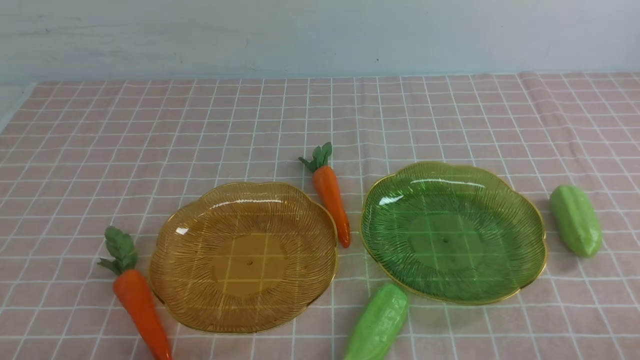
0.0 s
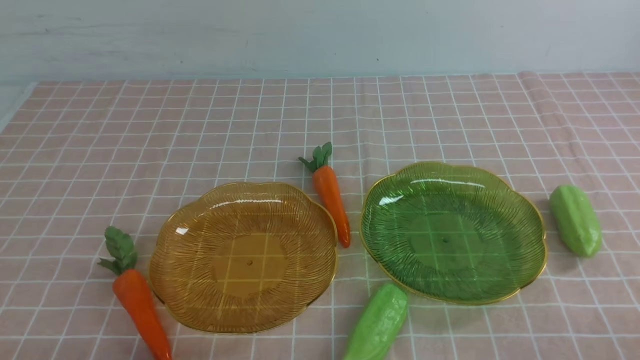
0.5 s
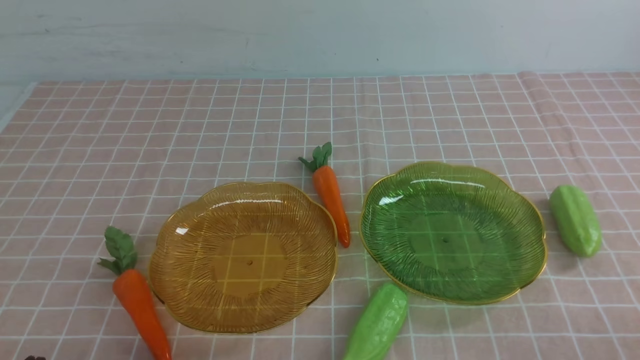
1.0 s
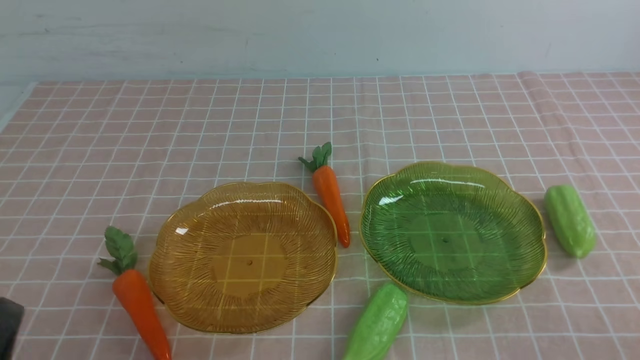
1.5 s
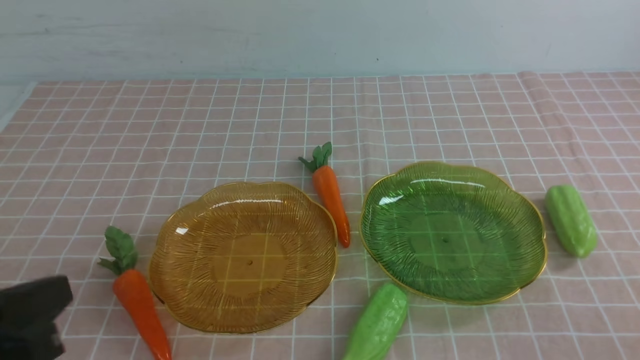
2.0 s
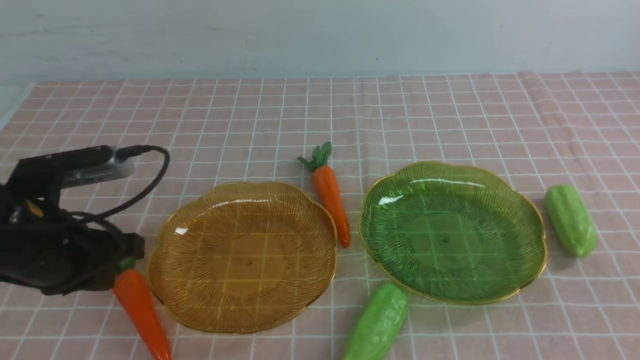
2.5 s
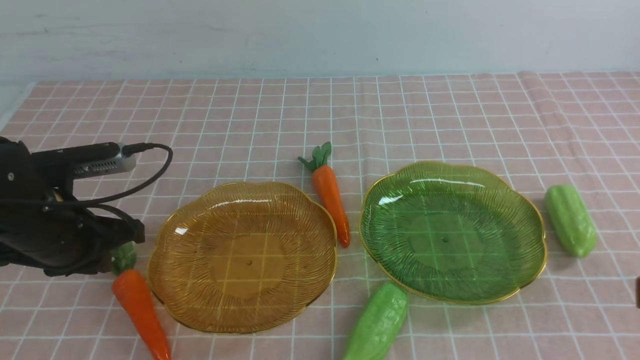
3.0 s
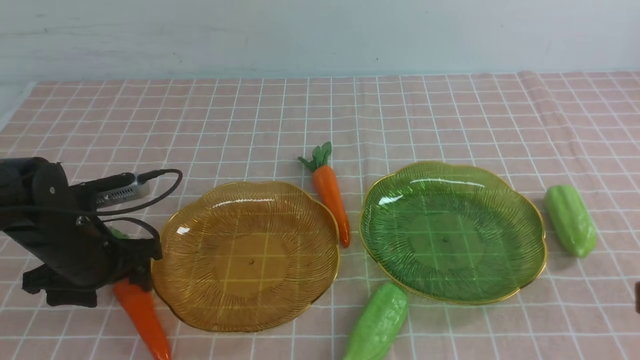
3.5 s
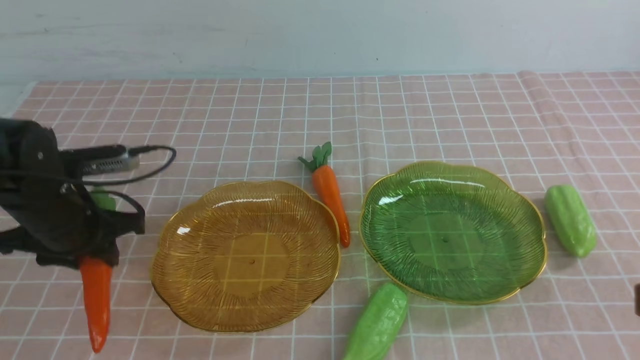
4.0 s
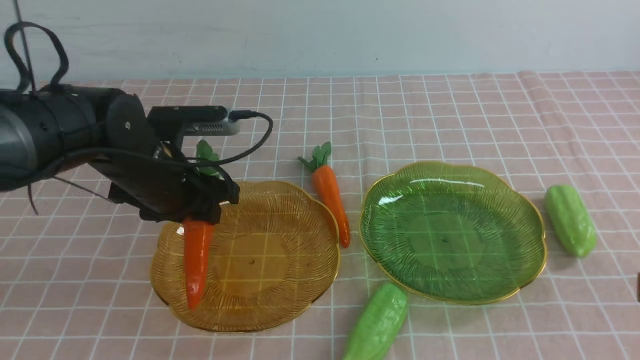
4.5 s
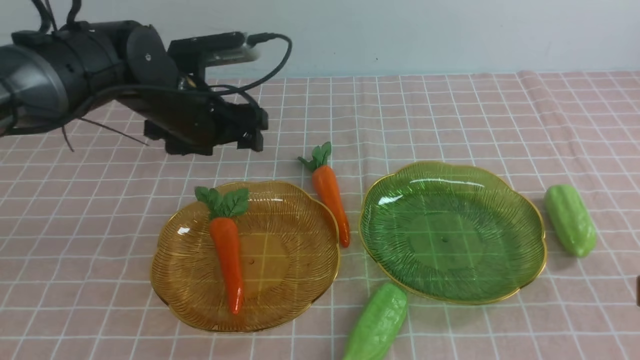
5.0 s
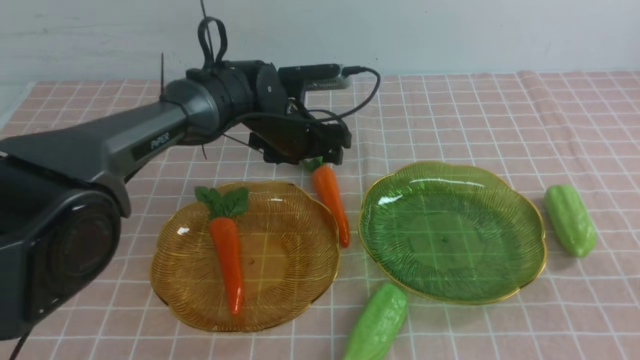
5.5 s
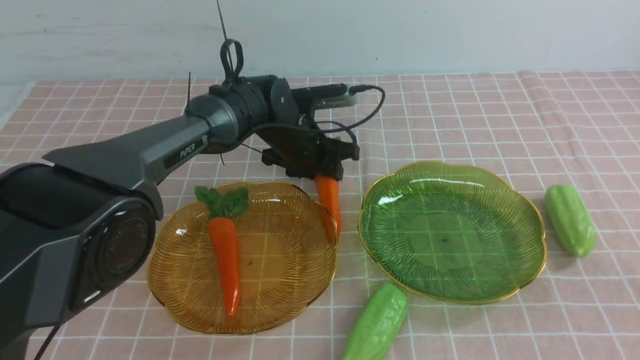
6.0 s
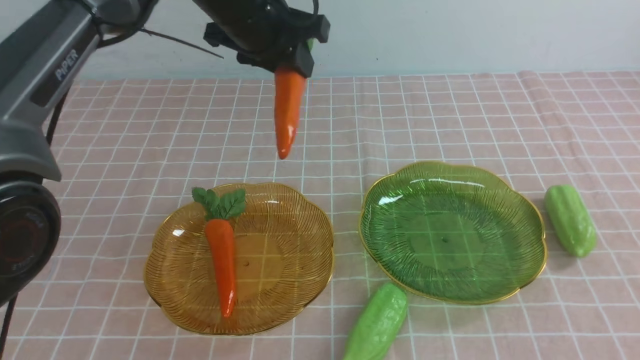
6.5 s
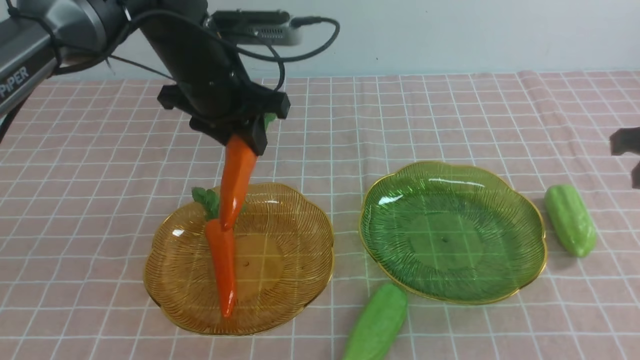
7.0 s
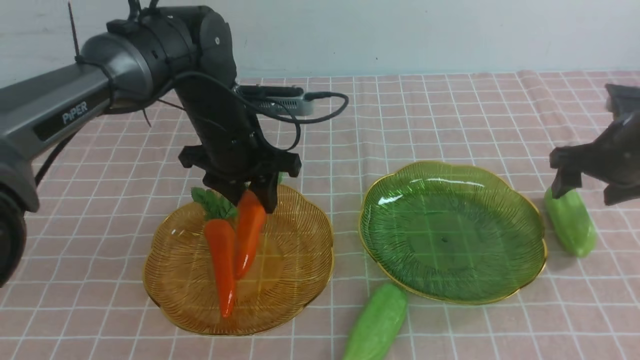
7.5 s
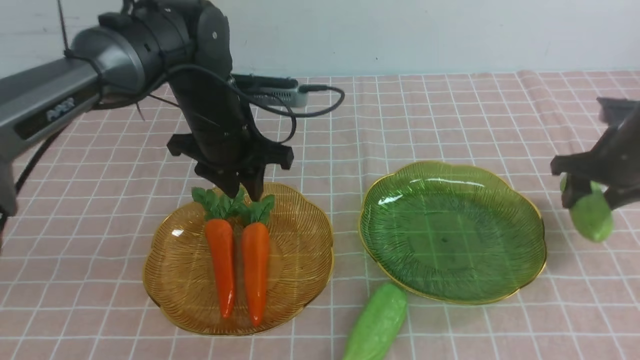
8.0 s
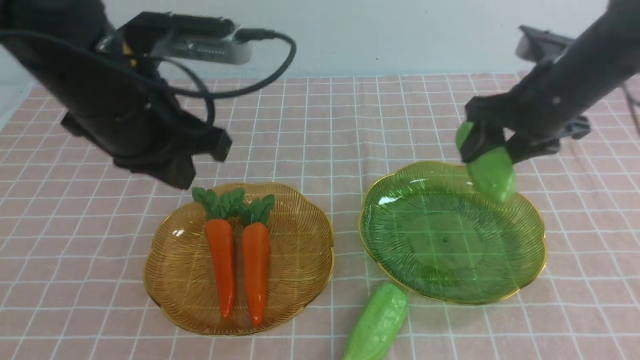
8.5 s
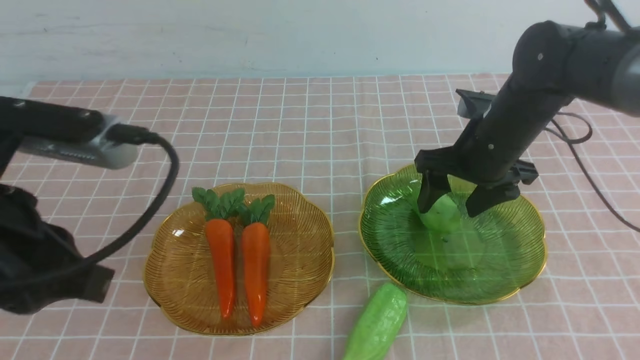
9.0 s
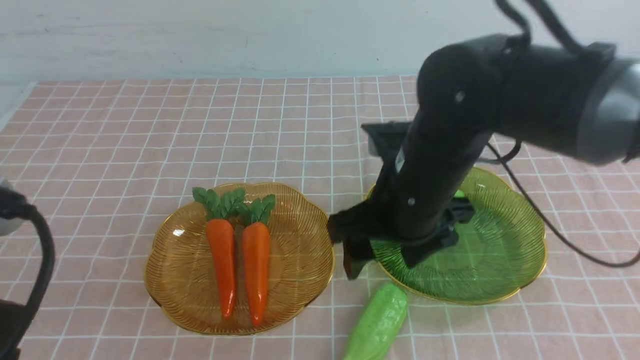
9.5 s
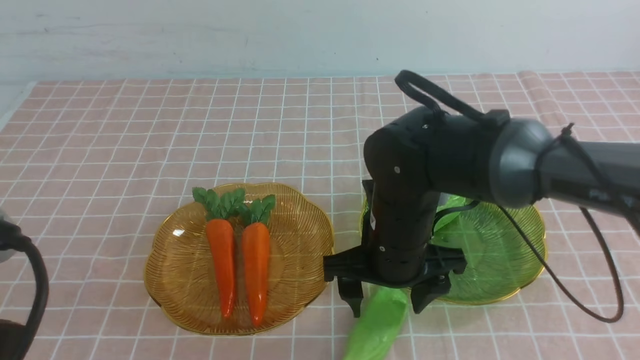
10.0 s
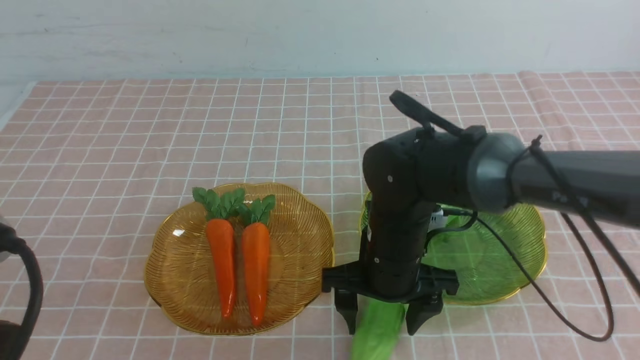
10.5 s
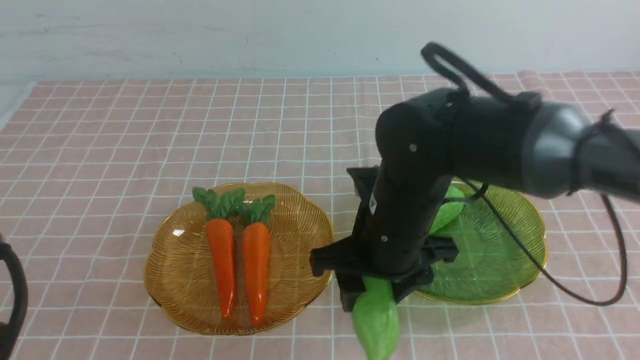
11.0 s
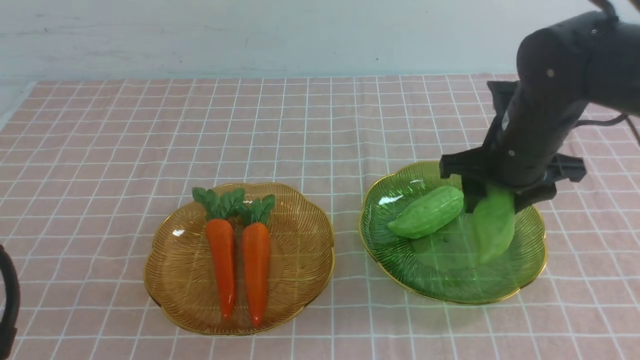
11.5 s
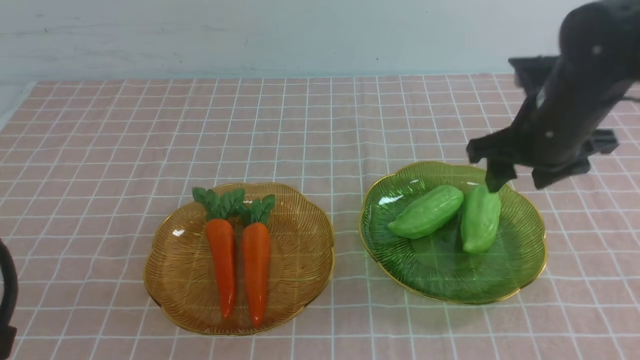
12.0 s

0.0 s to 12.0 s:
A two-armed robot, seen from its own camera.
Step, 0.0 to 7.5 s: use the left arm to grab a carrot and put it into the left plate.
Step, 8.0 to 11.5 s: use the right arm to grab a chayote and put it into the right plate.
0.0 to 2.0 s: The left gripper shifts approximately 10 cm upward.
2.0 to 4.0 s: The left gripper travels forward by some 20 cm, and opens its fingers.
4.0 to 6.0 s: The left gripper heads to the right, forward and upward, covering about 25 cm, and opens and closes again; the right gripper shifts by about 5 cm.
6.0 to 8.0 s: The right gripper goes approximately 30 cm forward and downward, and opens its fingers; the left gripper goes approximately 10 cm backward and to the left, and travels downward and back again, about 5 cm each way.
8.0 to 10.0 s: The right gripper travels to the left and backward by roughly 30 cm, while the left gripper moves backward, about 30 cm, and closes.
10.0 to 12.0 s: The right gripper goes approximately 20 cm to the right and upward.

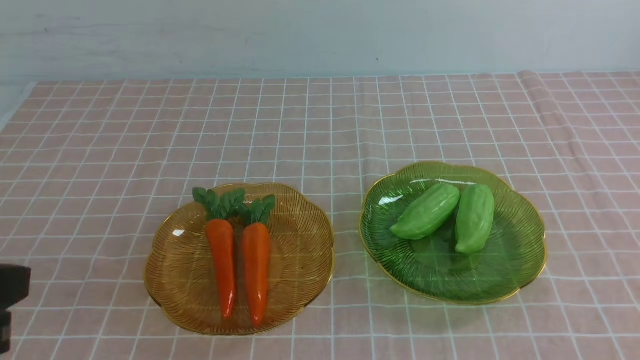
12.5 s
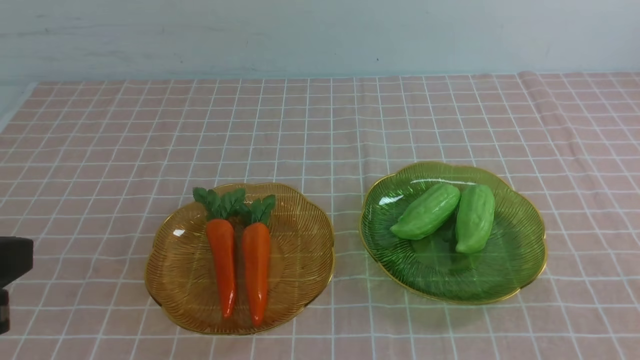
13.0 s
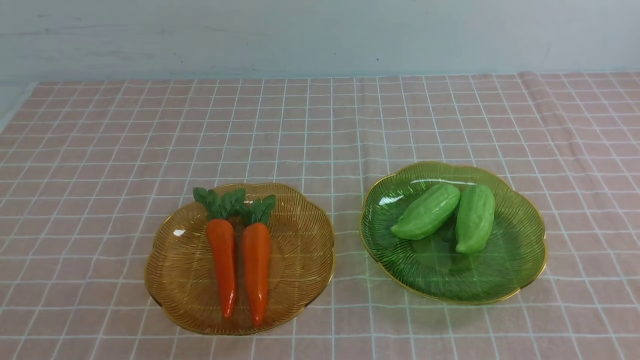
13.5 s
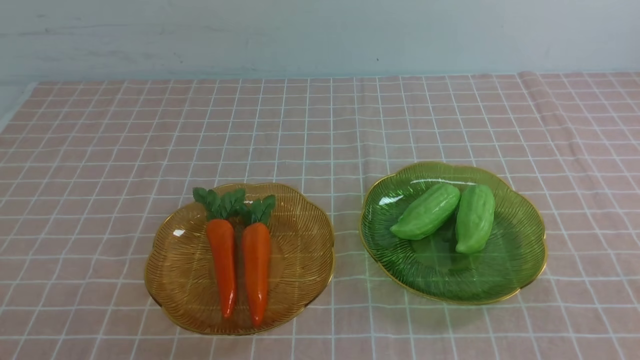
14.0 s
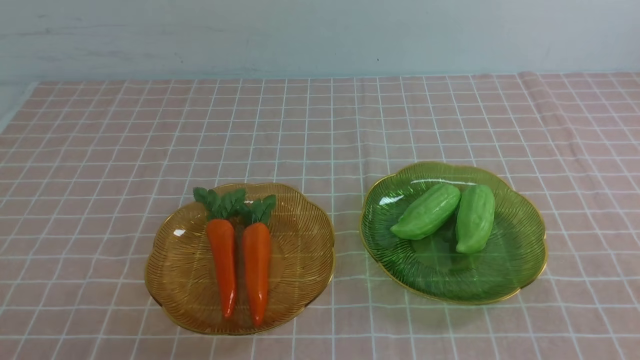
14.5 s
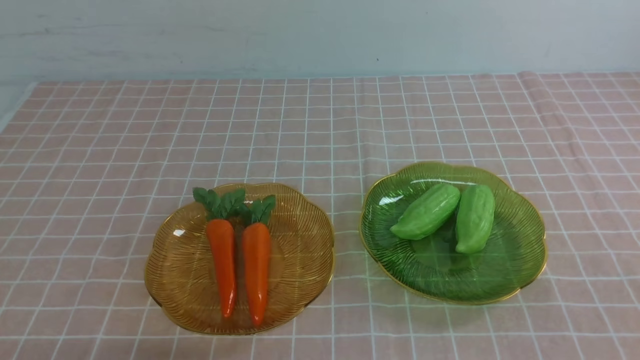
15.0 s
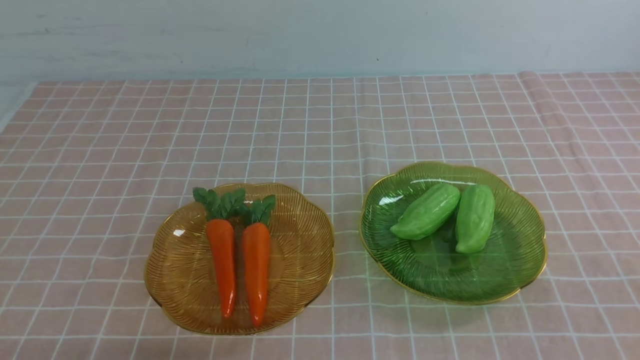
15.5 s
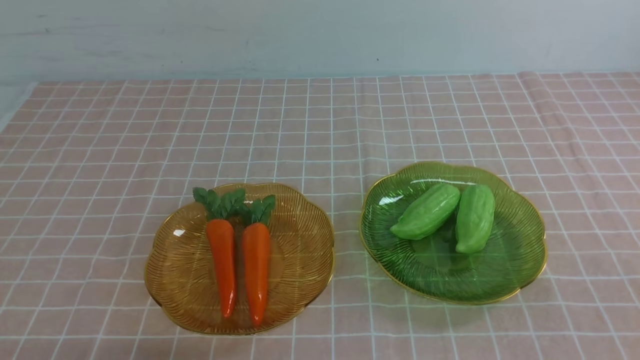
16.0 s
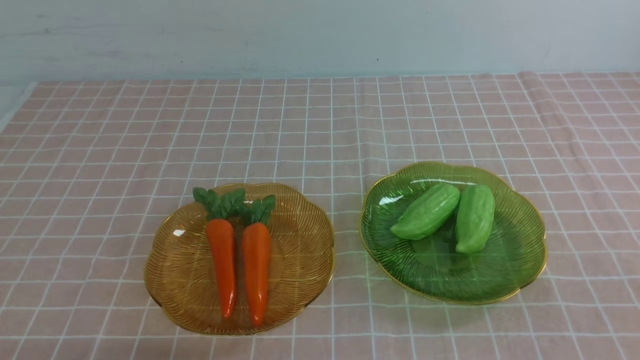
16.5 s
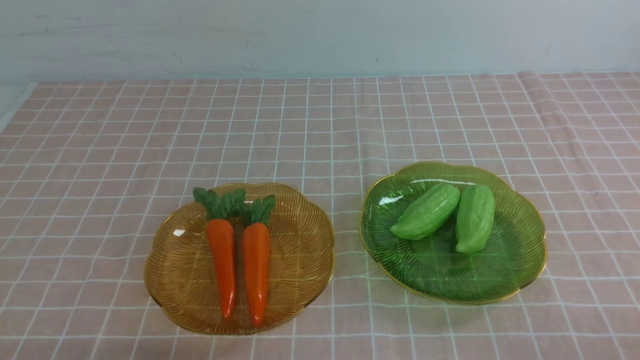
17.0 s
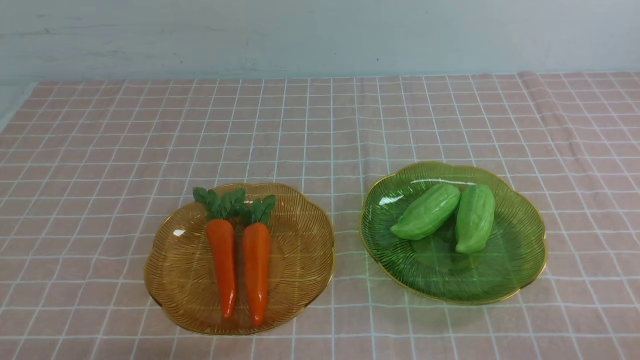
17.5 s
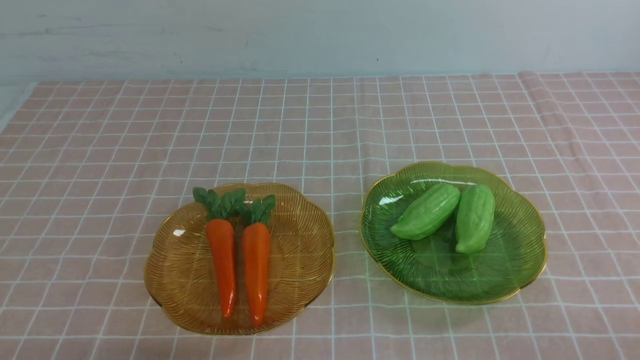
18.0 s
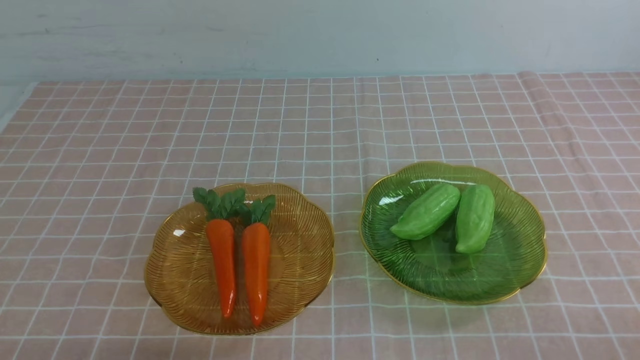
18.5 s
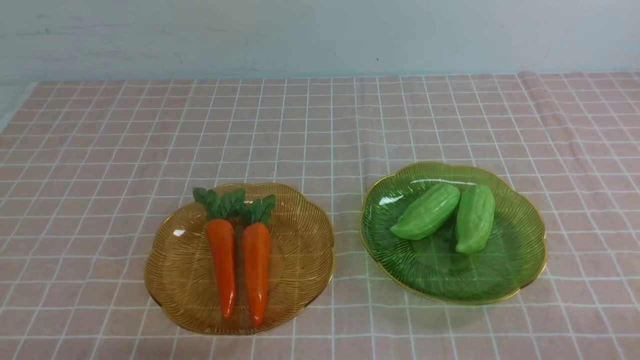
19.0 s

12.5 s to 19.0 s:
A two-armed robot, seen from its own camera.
12.5 to 14.5 s: The left gripper heads downward, covering roughly 20 cm.
17.0 to 19.0 s: Both grippers stay put.

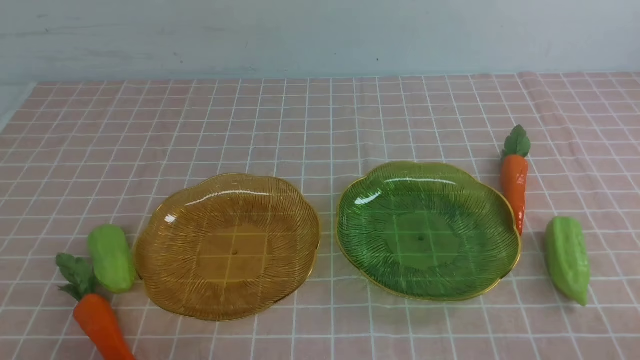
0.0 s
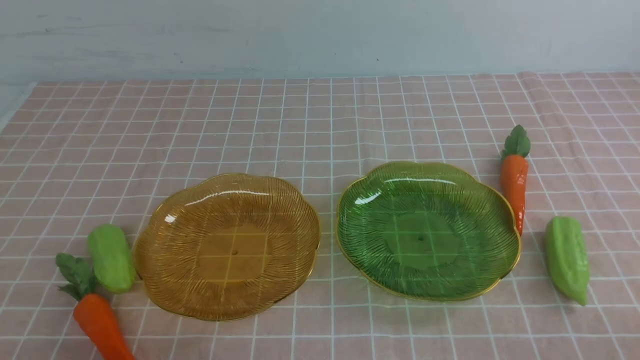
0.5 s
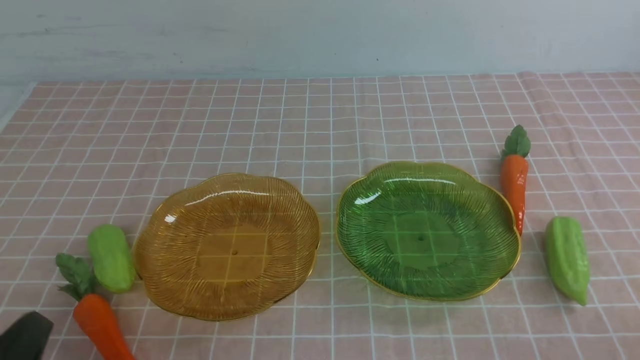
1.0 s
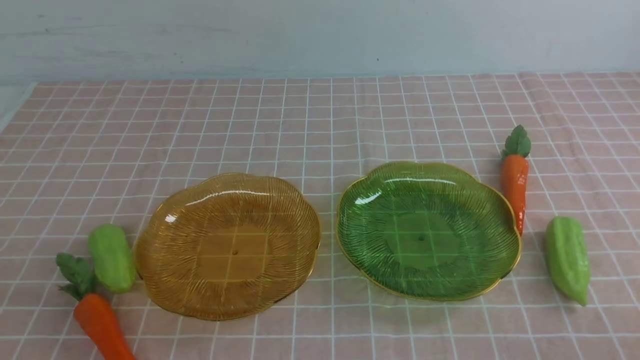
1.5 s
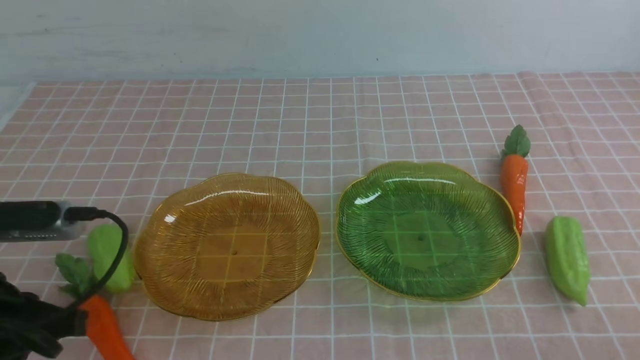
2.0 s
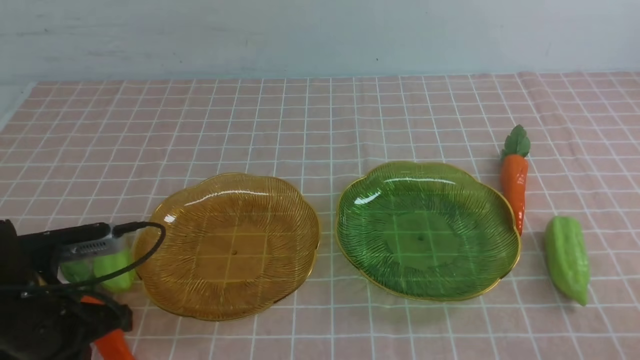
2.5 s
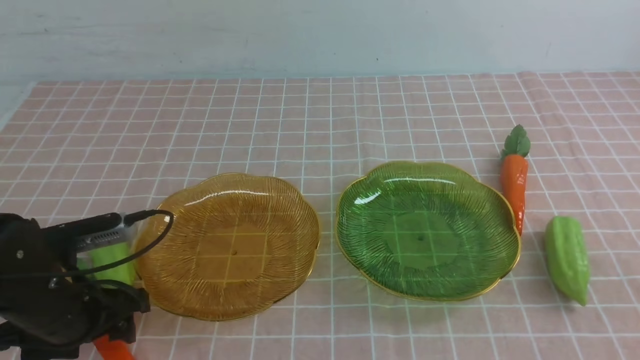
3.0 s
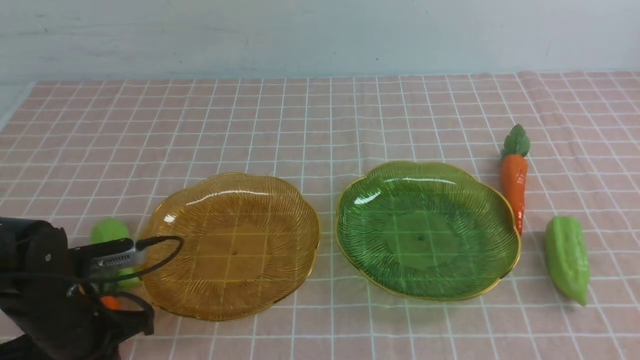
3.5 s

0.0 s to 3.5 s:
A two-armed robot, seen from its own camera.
0.0 to 2.0 s: The left gripper travels forward and upward by roughly 15 cm.
2.0 to 3.5 s: The left gripper moves downward and forward, about 10 cm, and opens, then closes once more.
